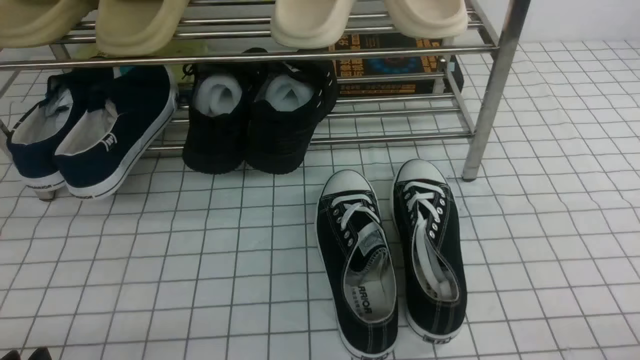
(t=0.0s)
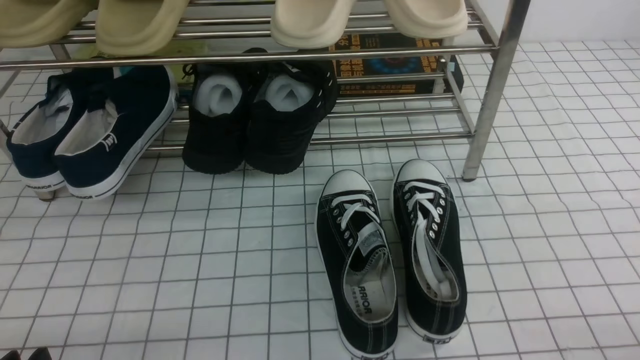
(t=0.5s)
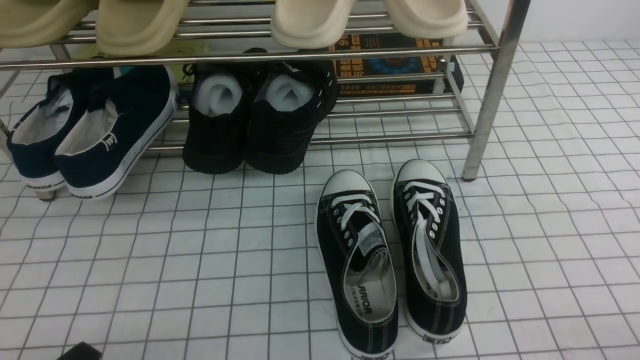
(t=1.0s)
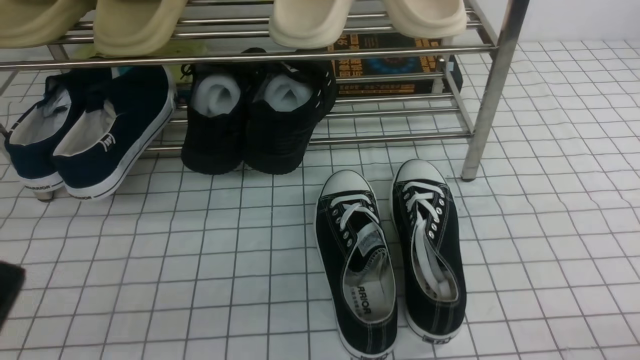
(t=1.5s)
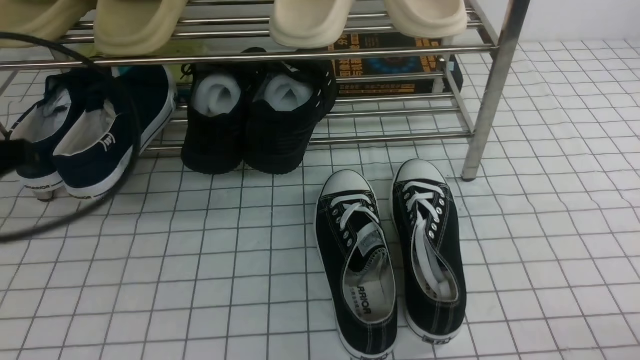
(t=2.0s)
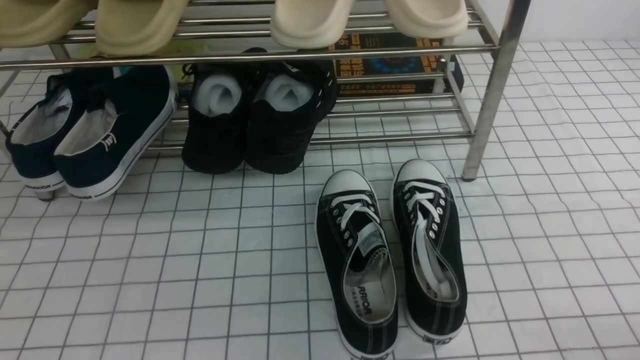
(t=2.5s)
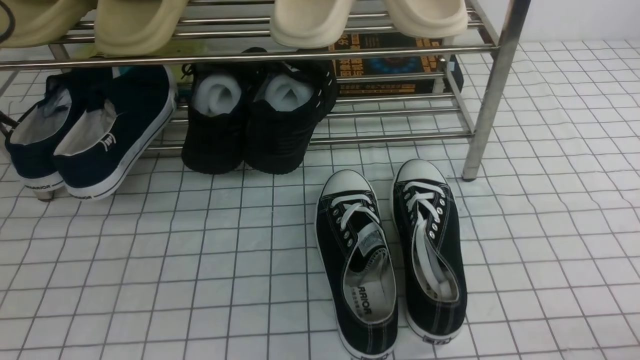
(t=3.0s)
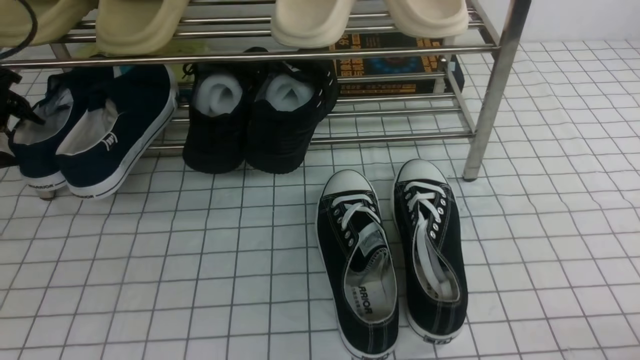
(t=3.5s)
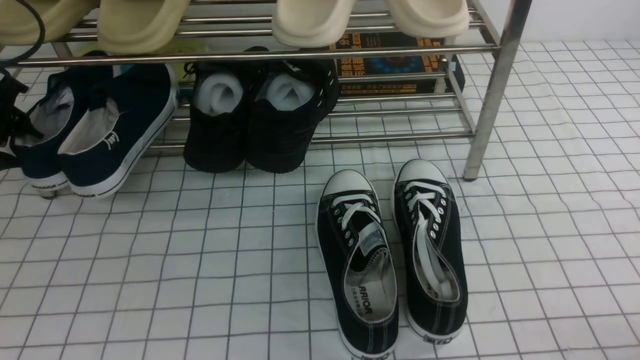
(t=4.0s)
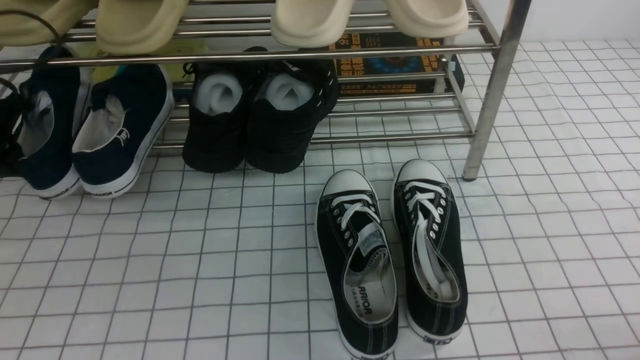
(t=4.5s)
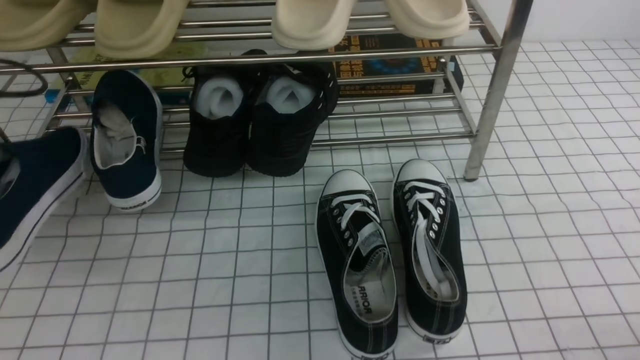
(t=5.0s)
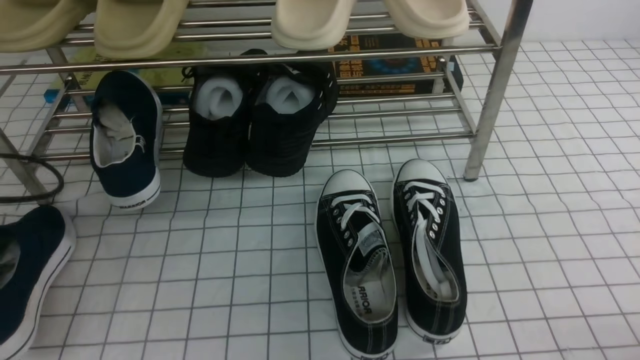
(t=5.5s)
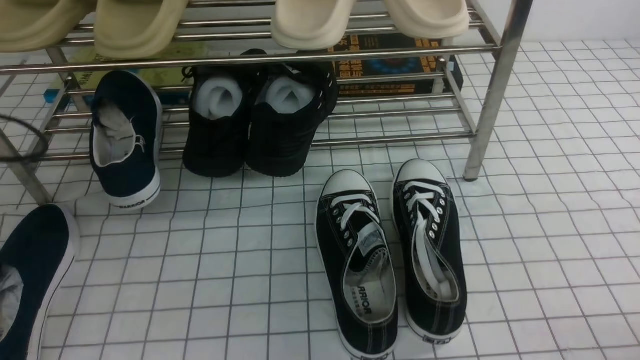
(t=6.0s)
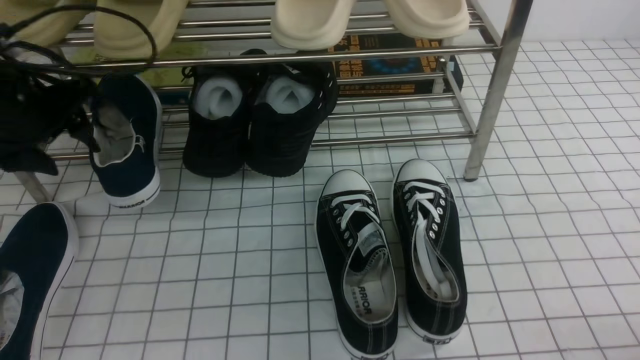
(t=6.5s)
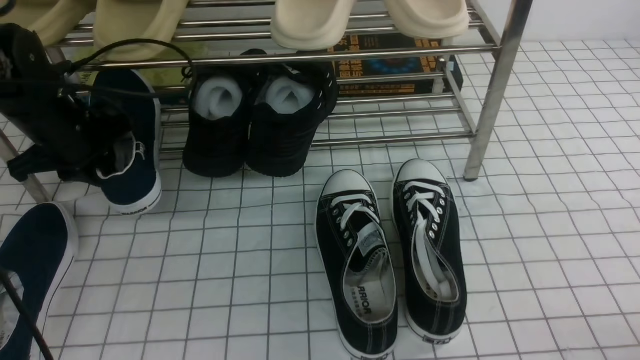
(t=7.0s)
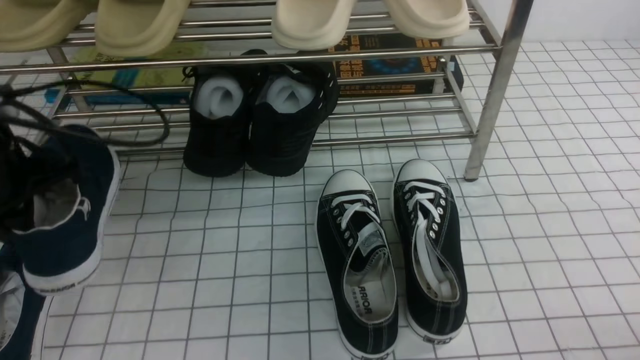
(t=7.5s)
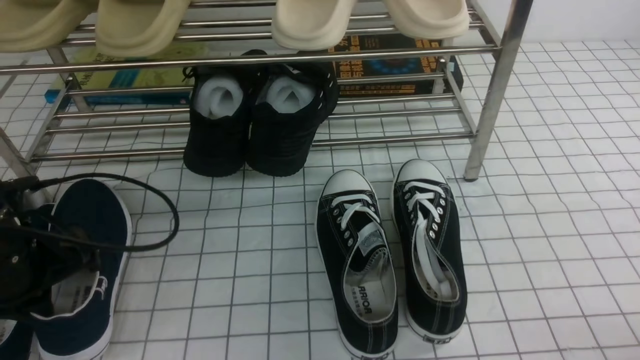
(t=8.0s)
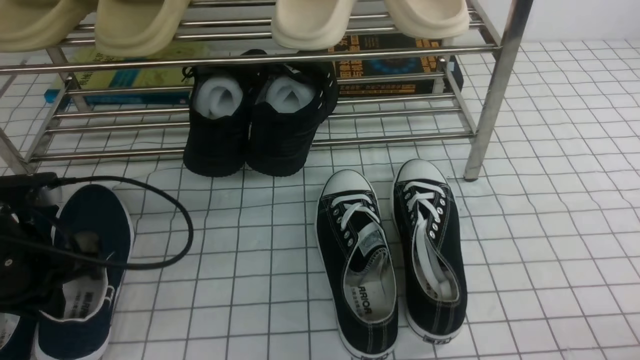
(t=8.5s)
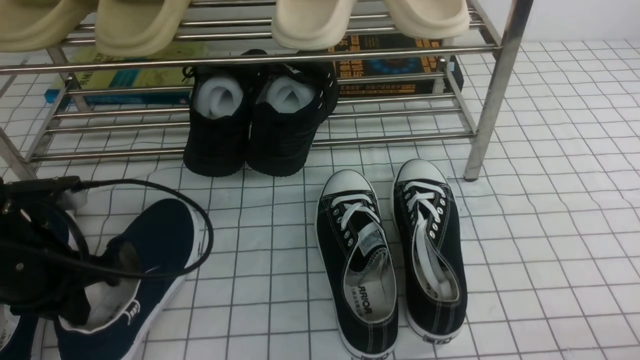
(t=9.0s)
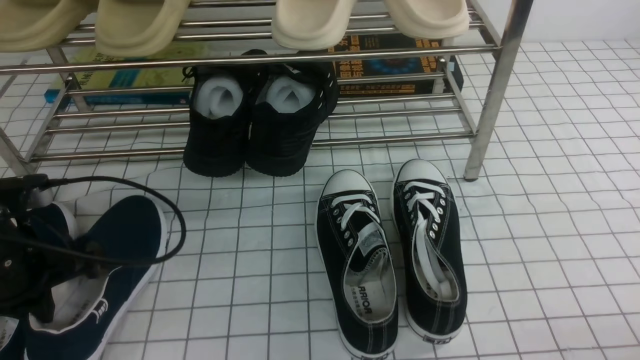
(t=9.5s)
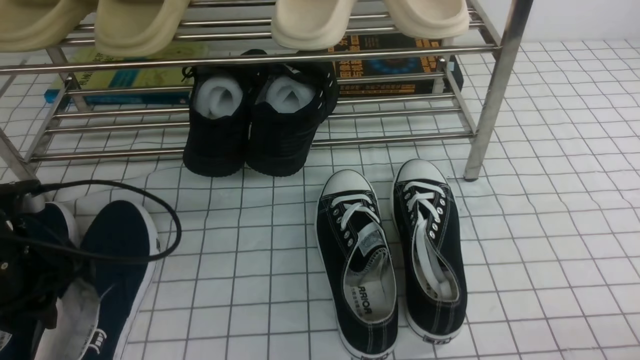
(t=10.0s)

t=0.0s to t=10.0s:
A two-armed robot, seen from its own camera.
Step, t=0.0s to t=4.0s: use the left arm to clamp a shoe on the left side of the shoe rack.
Step, t=4.5s to t=6.0s: Use your left arm to remove the clamped shoe from the shoe rack and put it down.
Step, t=6.5s to t=7.0s: use the left arm to clamp a shoe on the left side of the shoe rack.
t=0.0s to t=2.0s: The left gripper goes approximately 25 cm upward and forward, and closes.
t=2.0s to t=4.0s: The right gripper opens. Meanwhile the left gripper moves forward, downward and to the left, about 25 cm, and opens up.
t=4.0s to t=6.0s: The left gripper shifts approximately 15 cm backward, and closes and opens again.
t=6.0s to t=8.0s: The left gripper shifts some 10 cm to the right and downward, moves about 15 cm forward and comes back, and closes up.
t=8.0s to t=10.0s: The grippers move only a little.

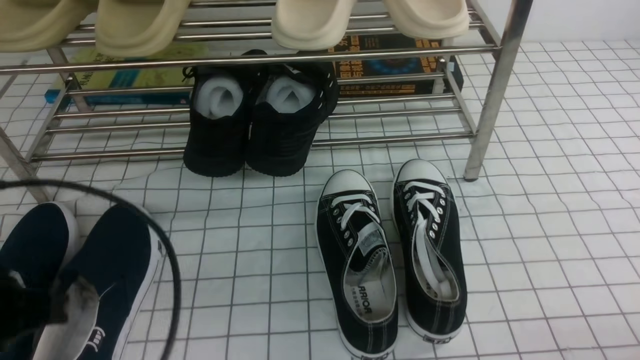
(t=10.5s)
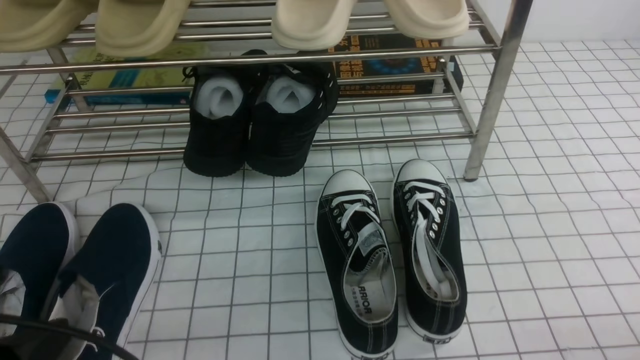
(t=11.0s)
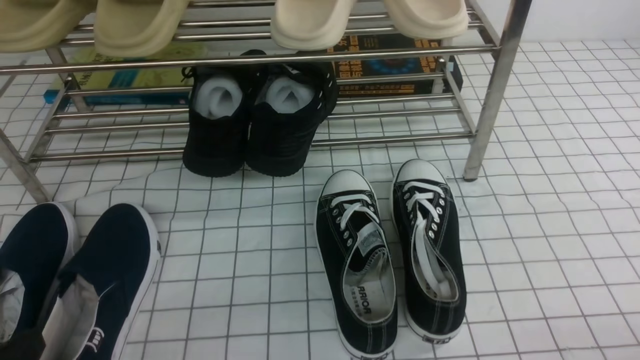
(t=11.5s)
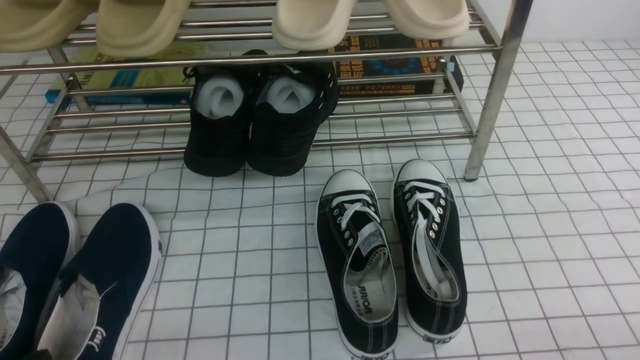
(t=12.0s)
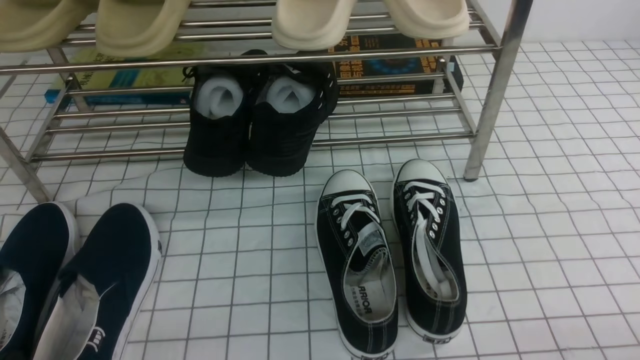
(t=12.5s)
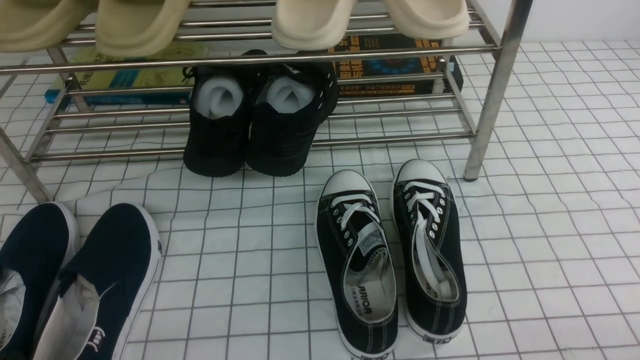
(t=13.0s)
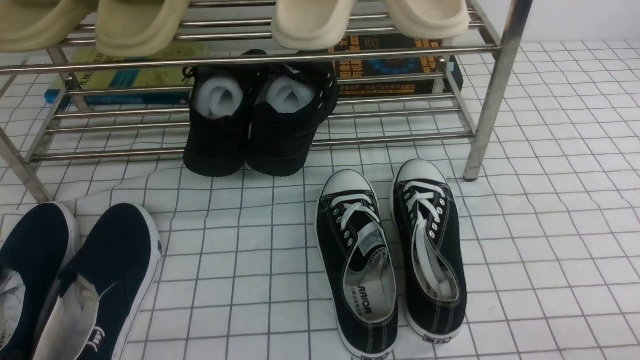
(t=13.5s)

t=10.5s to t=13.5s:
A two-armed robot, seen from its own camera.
t=10.5s to t=12.0s: The left gripper moves downward and backward, some 15 cm.

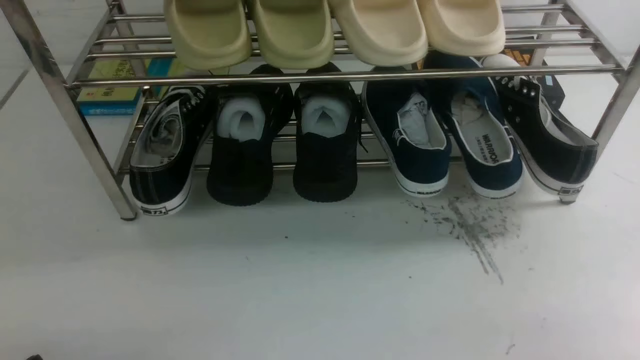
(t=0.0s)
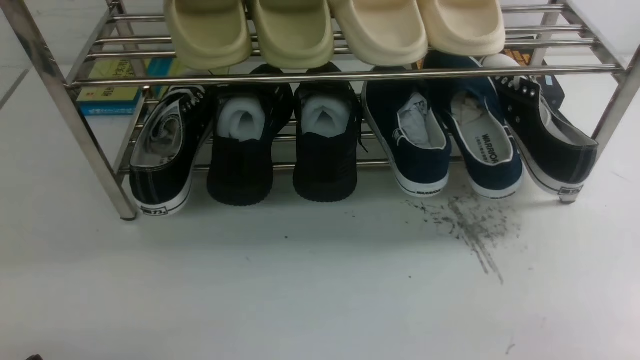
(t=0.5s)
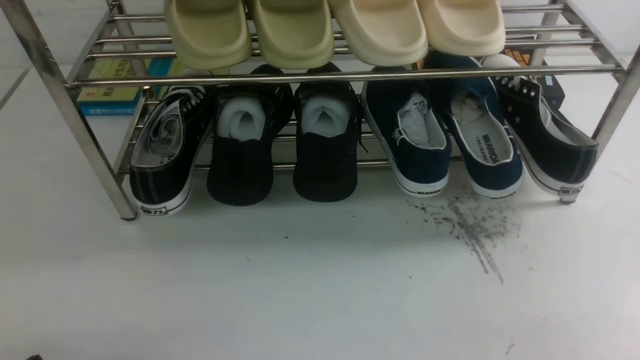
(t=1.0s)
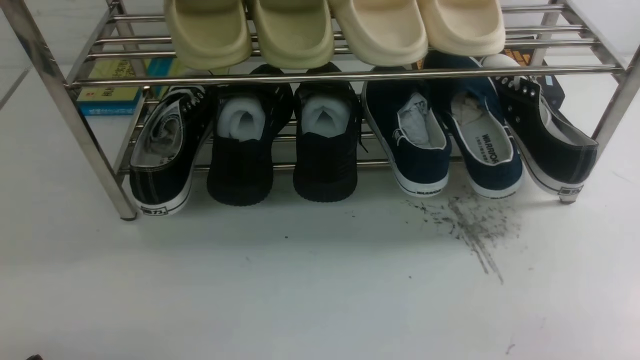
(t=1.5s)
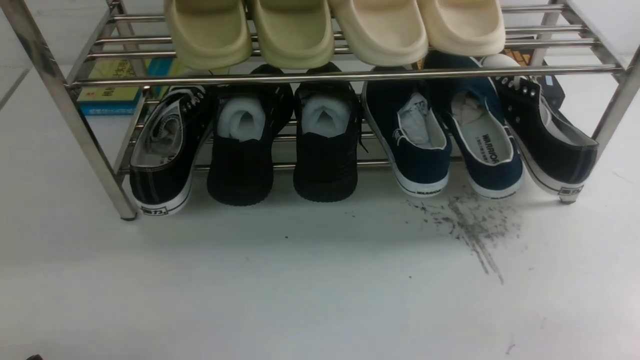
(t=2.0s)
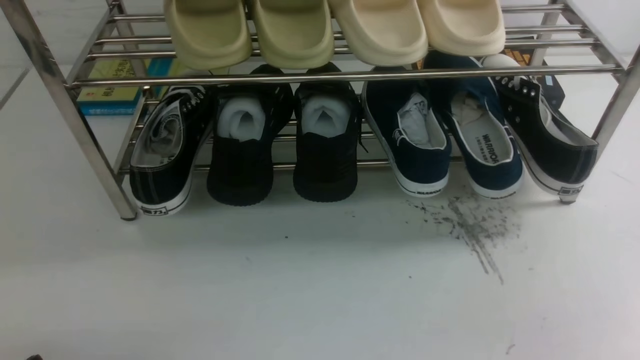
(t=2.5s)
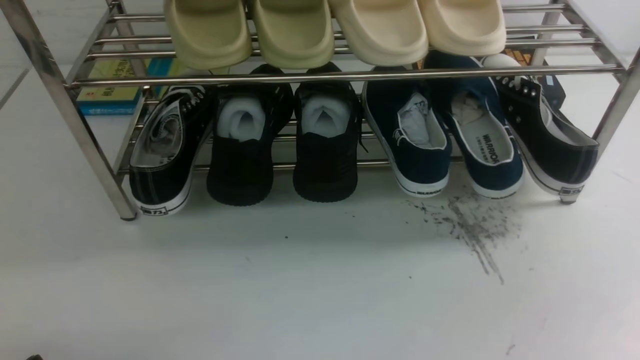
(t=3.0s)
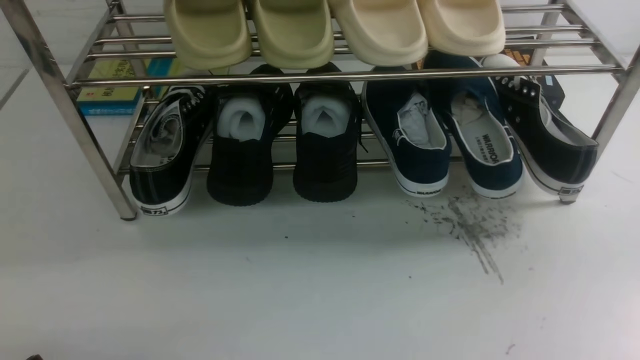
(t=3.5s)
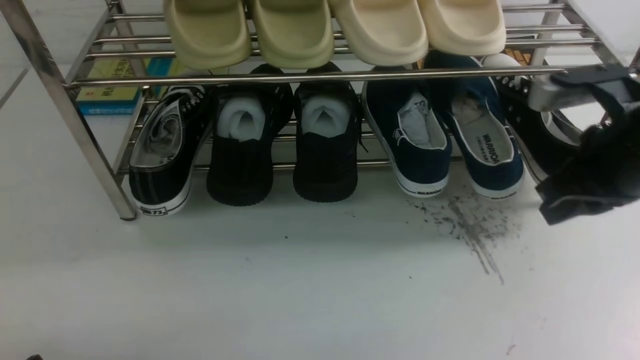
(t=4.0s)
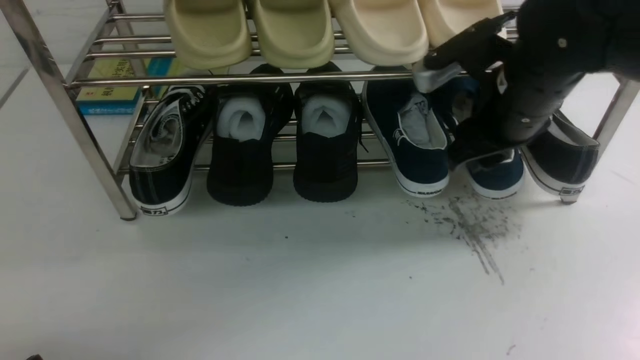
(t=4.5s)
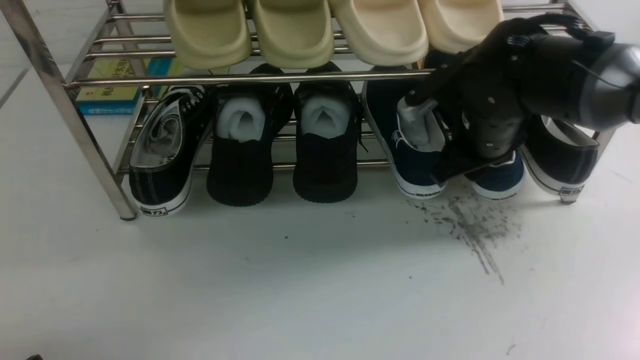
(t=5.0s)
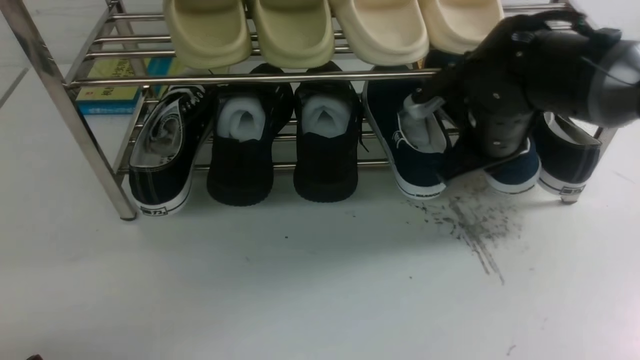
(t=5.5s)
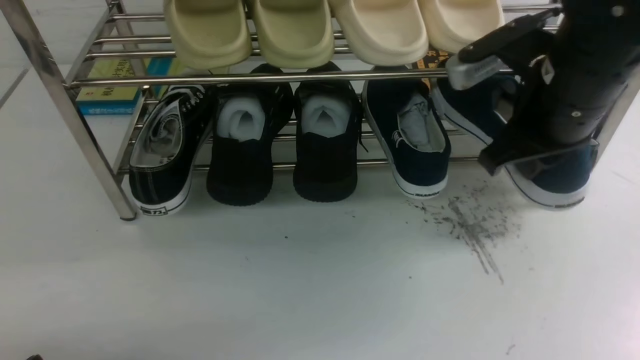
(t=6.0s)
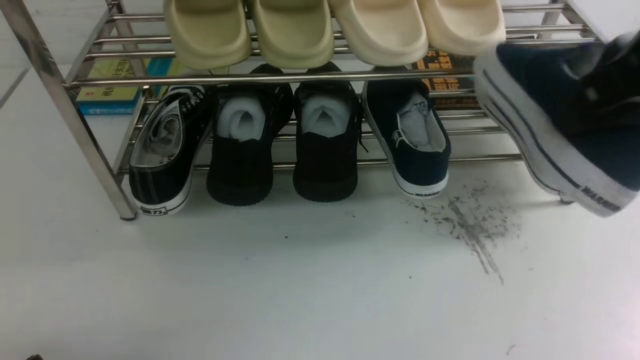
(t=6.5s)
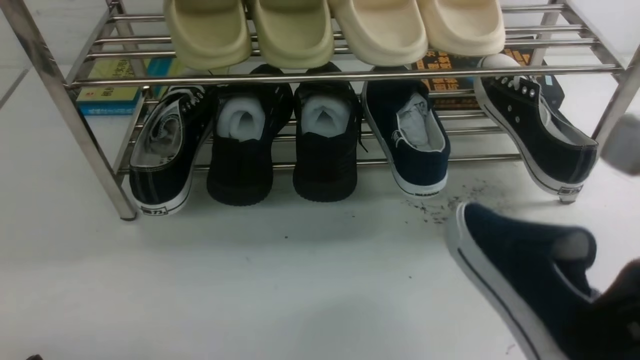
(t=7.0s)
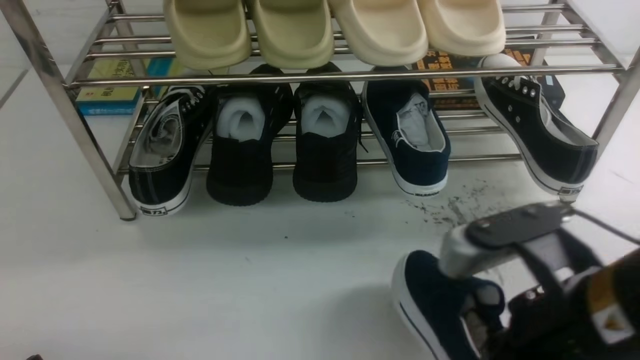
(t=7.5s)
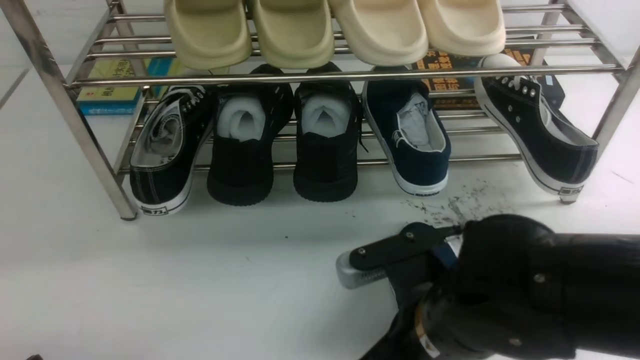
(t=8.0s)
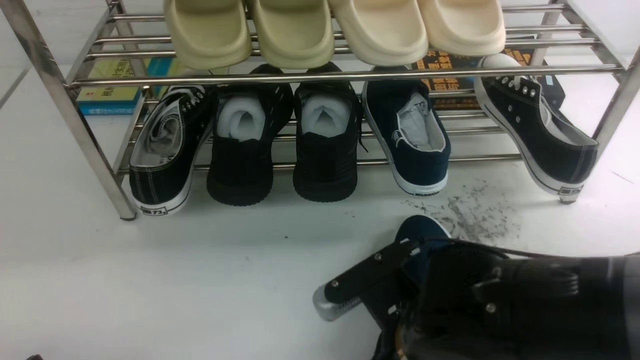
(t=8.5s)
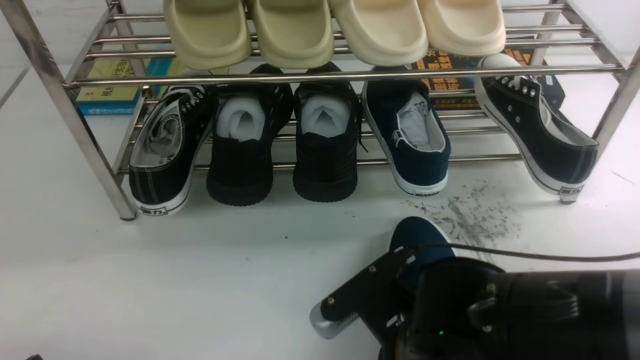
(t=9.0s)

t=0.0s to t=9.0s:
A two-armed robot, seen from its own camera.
Step, t=0.0s to t=5.5s: use the right arm to clamp a shoe on the right side of the shoe rack.
t=2.0s to t=4.5s: The right gripper shifts about 35 cm forward, to the left and upward, and closes and opens again.
t=4.5s to t=7.0s: The right gripper heads backward, covering about 20 cm, and closes up.
t=7.0s to t=9.0s: The right gripper shifts about 25 cm downward and to the left.
